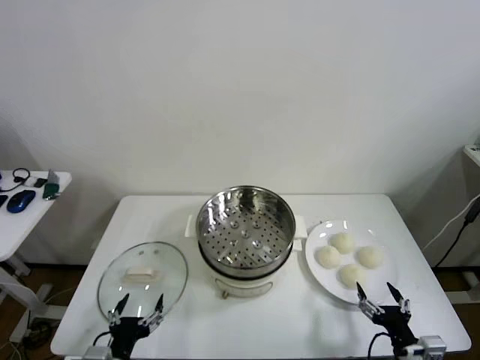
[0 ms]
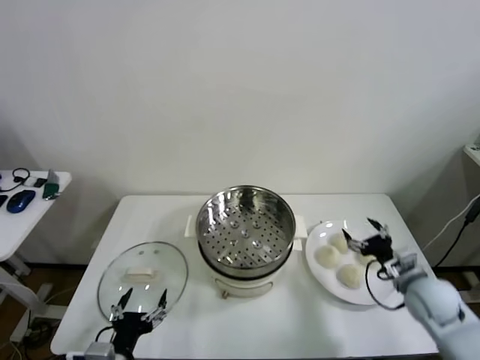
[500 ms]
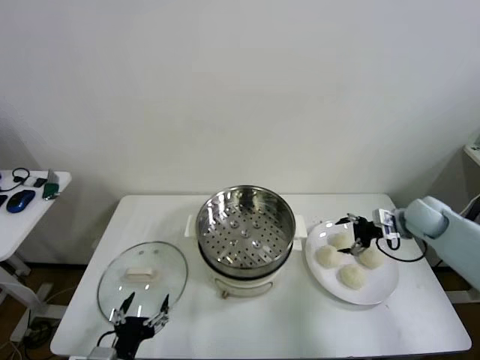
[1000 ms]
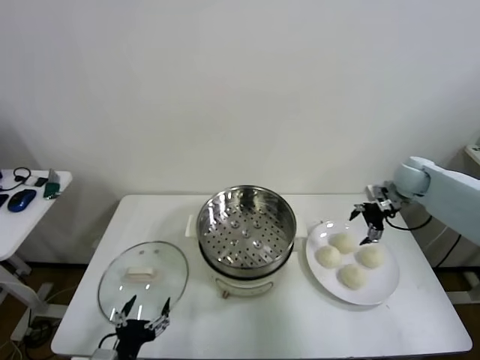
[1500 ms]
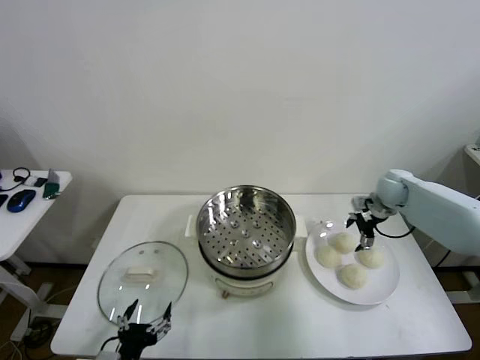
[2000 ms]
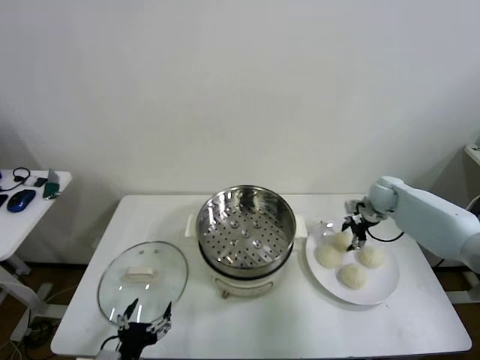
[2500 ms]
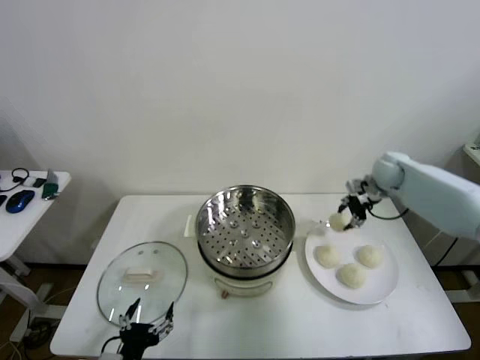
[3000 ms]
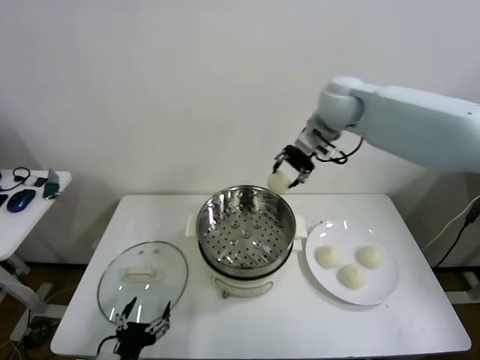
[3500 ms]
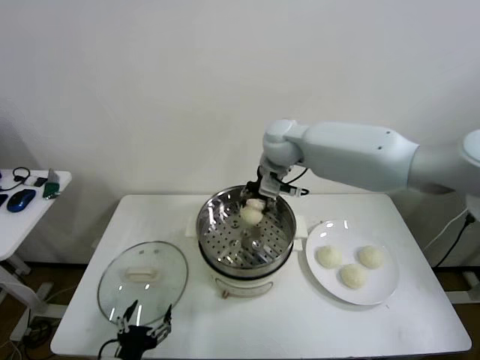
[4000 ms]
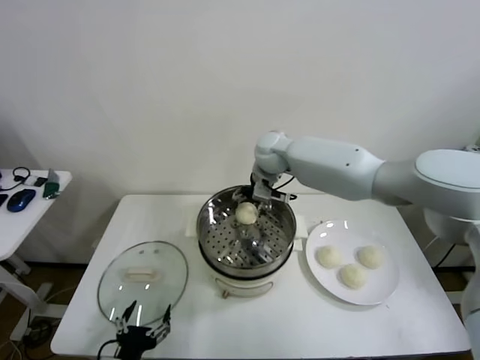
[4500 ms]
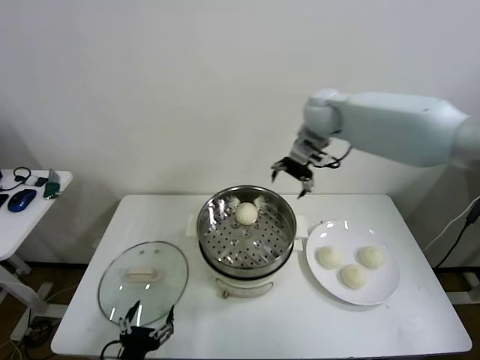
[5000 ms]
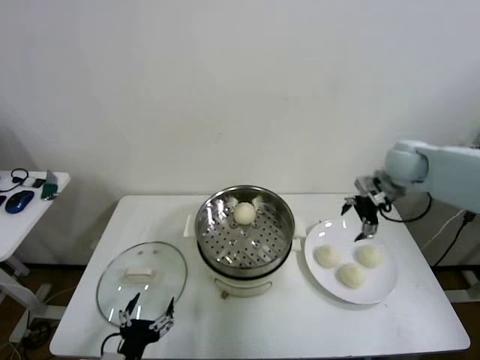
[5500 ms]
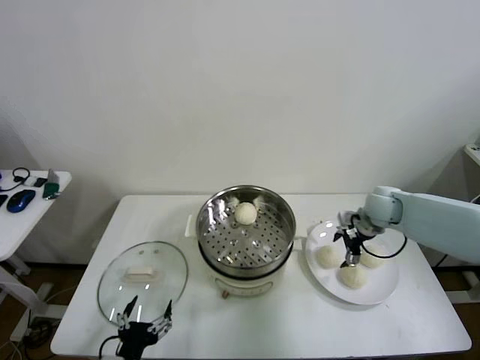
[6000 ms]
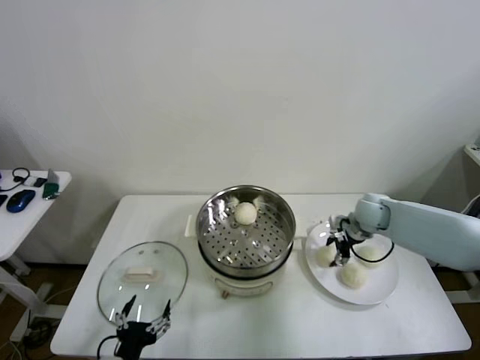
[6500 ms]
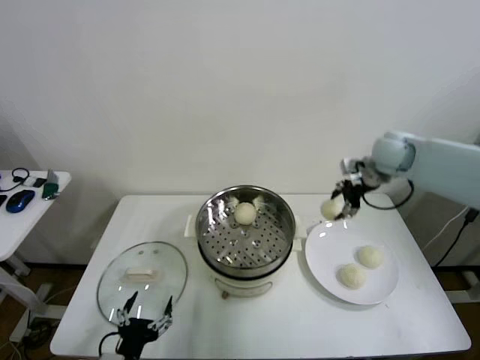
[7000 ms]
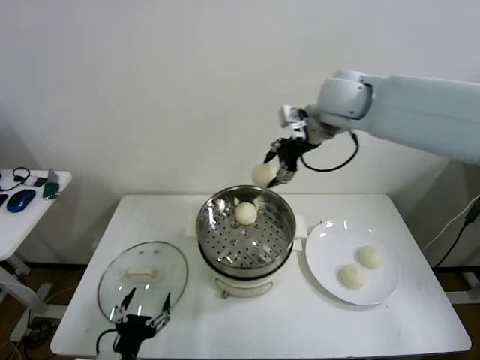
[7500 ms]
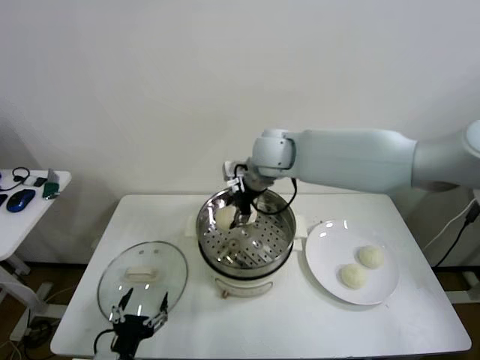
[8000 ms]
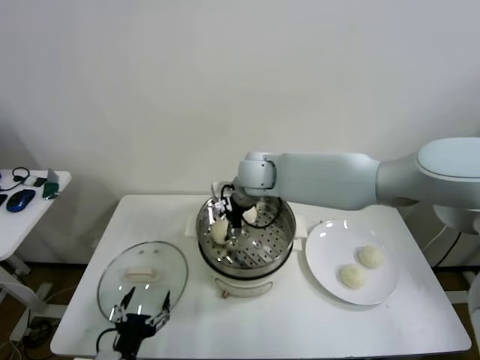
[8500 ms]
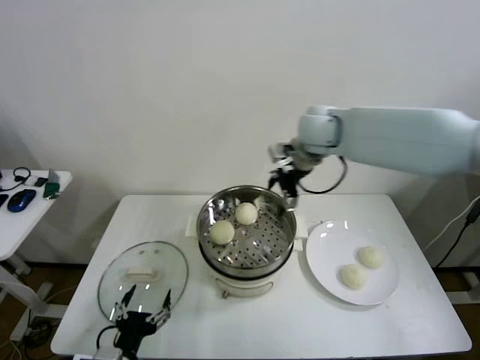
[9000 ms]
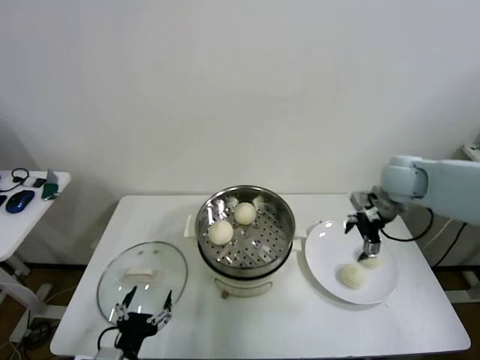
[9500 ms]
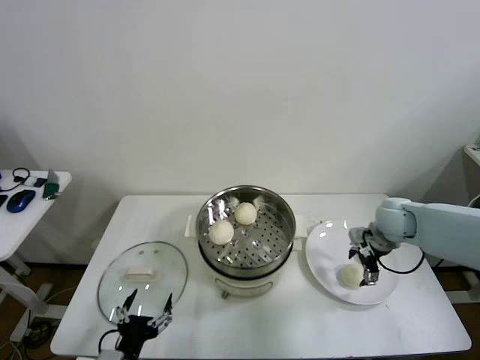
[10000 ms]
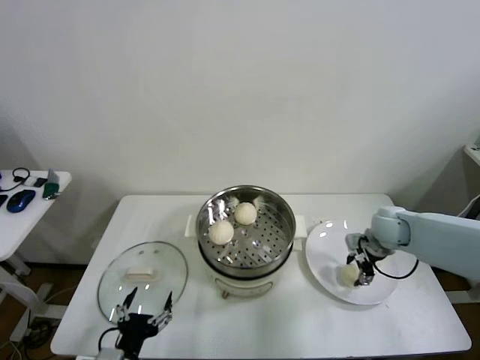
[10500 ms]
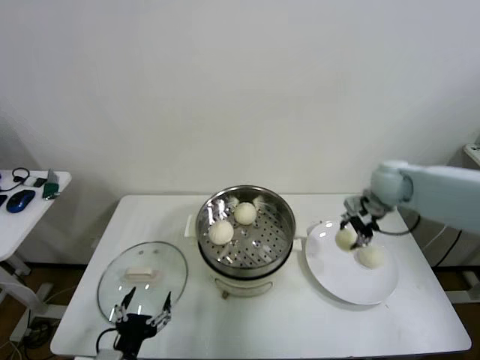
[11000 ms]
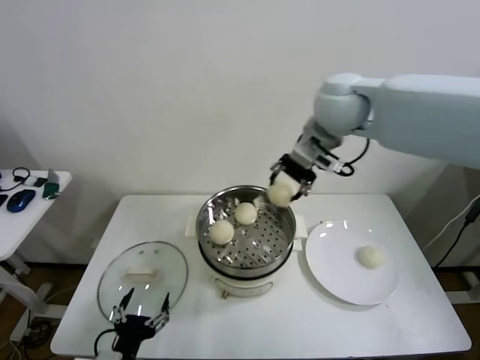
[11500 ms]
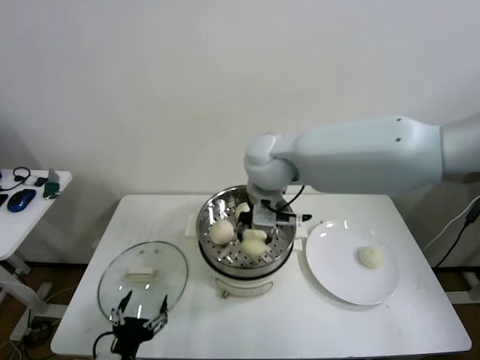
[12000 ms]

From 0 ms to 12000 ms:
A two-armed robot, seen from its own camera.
Step, from 0 ms to 2500 ms: Grasp the baozi in the plate with right gripper.
Step, from 3000 ms to 4500 ms: Place the baozi on the steamer with right gripper.
Step, from 5000 ms to 6000 ms: Grasp the baozi in the plate with right gripper.
Step, from 6500 ms to 8500 ms: Place the baozi on the steamer with right gripper.
Step, from 9000 ms to 10500 ms: Grasp the baozi in the plate with right gripper.
From 2000 ms to 4000 ms: The right gripper shifts about 35 cm to the left and upward, and closes up.
From 4000 ms to 6000 ms: The right gripper goes some 30 cm to the right and downward, and opens up.
From 6000 ms to 8000 ms: The right gripper heads to the left and upward, covering approximately 35 cm, and closes up.
From 8000 ms to 10000 ms: The right gripper moves to the right and downward, some 35 cm, and opens.
From 10000 ms to 12000 ms: The right gripper moves to the left and upward, about 35 cm, and closes up.

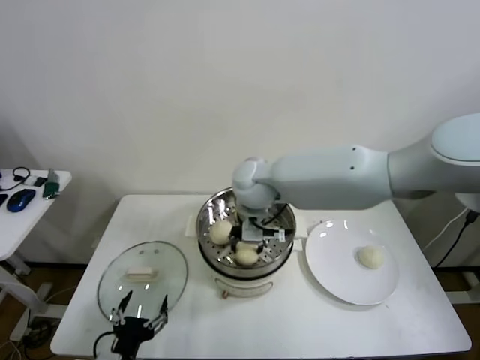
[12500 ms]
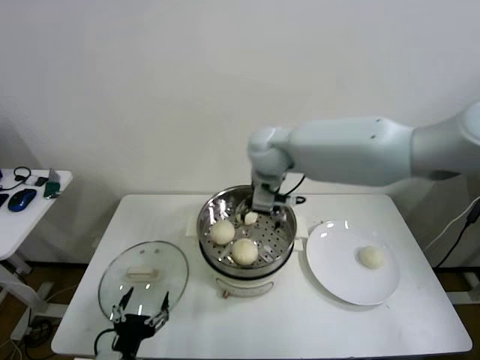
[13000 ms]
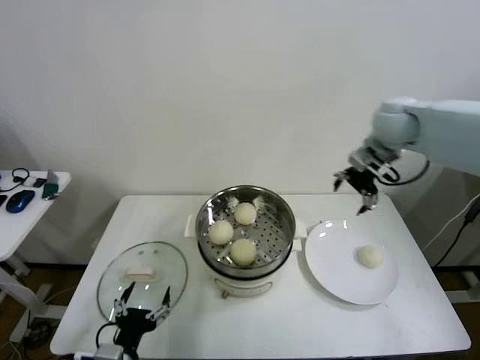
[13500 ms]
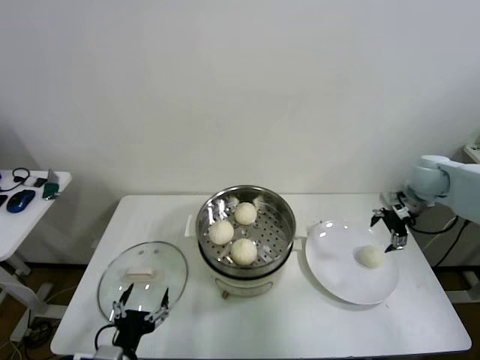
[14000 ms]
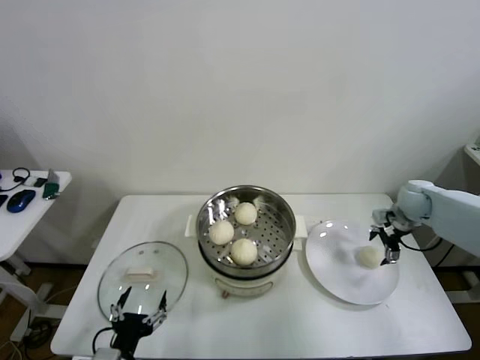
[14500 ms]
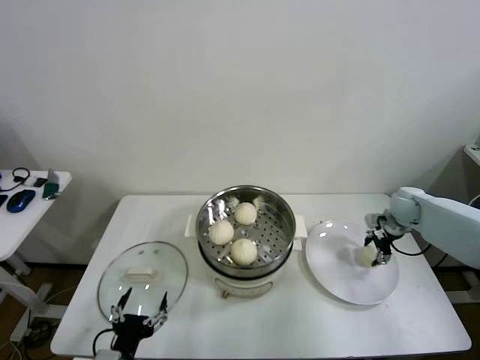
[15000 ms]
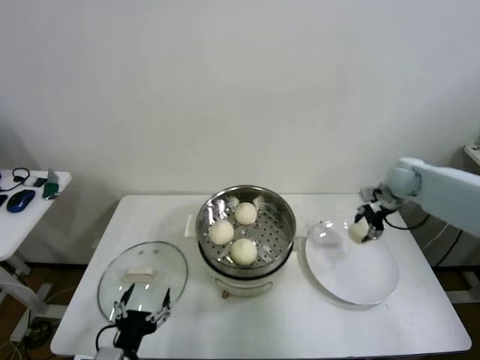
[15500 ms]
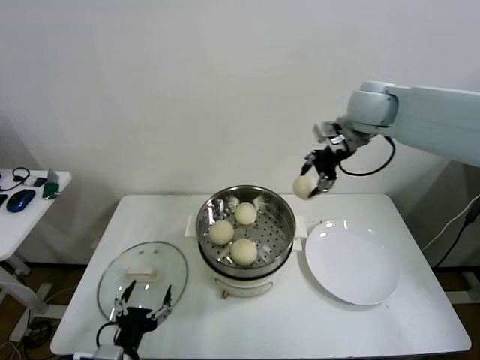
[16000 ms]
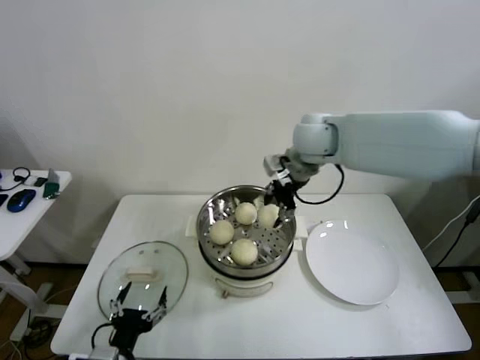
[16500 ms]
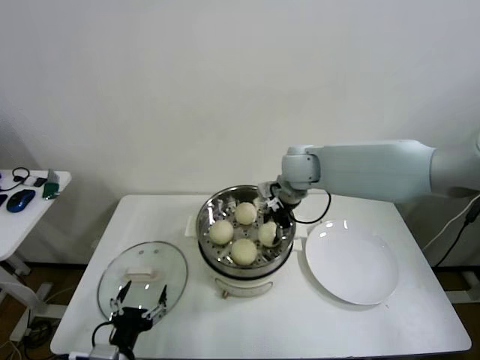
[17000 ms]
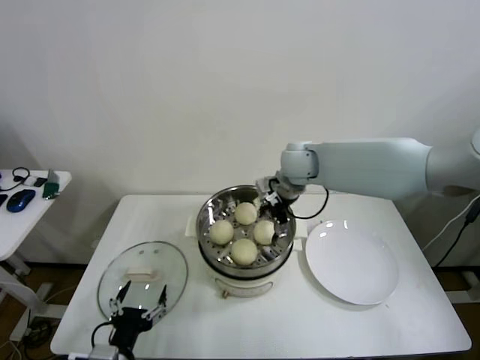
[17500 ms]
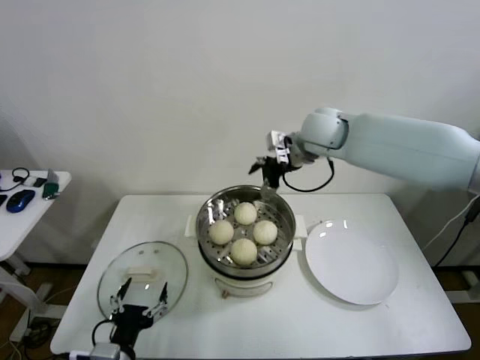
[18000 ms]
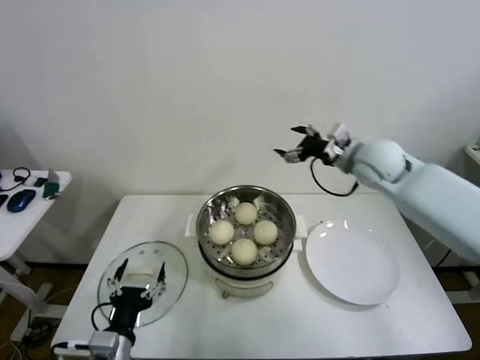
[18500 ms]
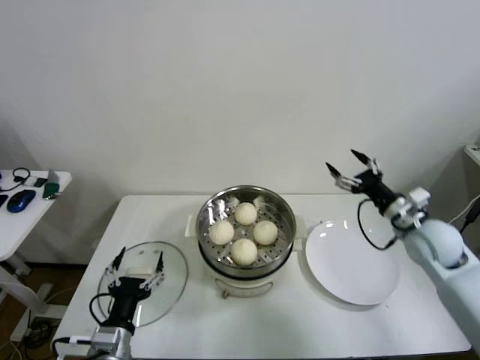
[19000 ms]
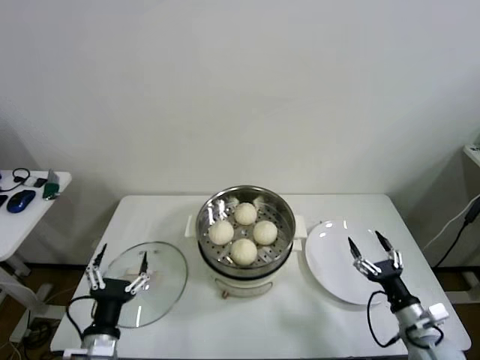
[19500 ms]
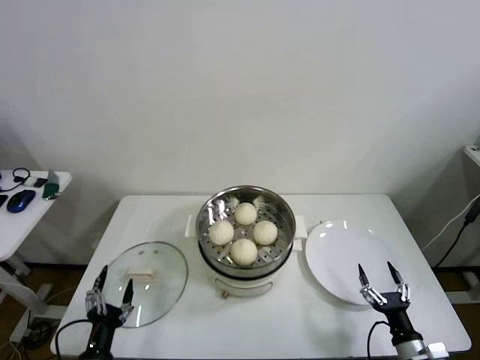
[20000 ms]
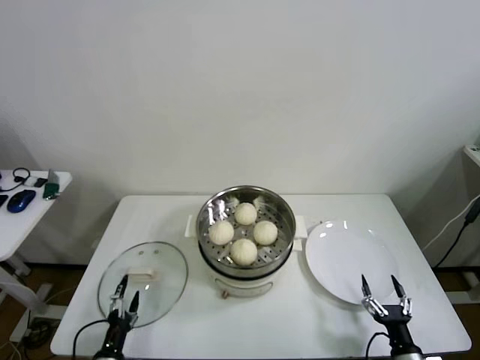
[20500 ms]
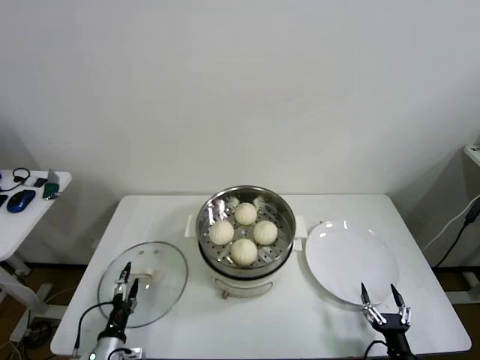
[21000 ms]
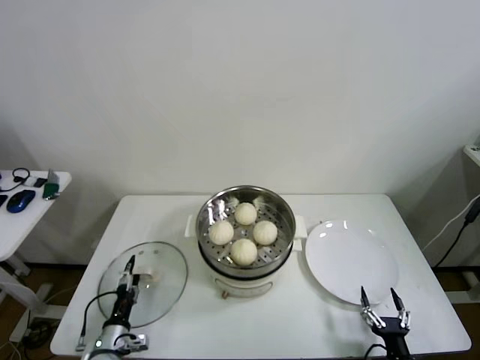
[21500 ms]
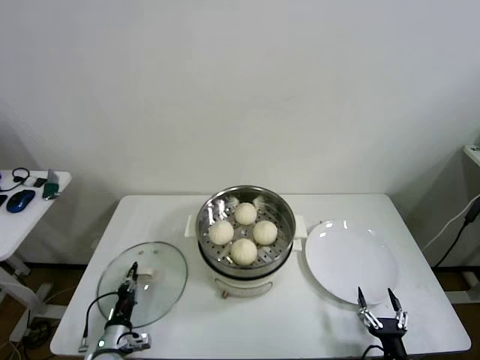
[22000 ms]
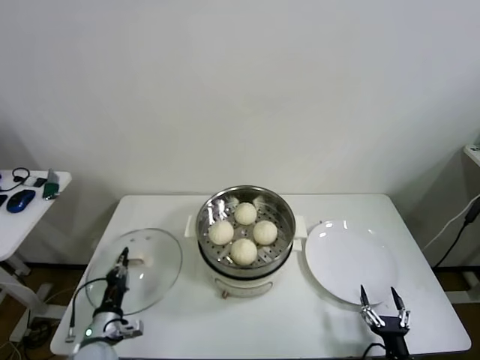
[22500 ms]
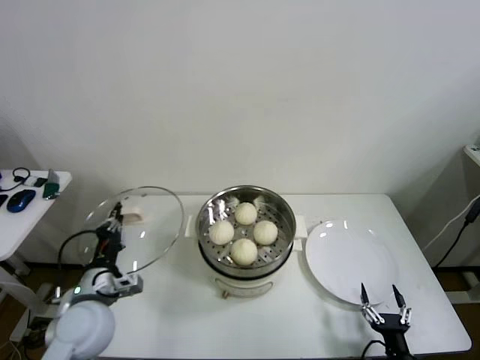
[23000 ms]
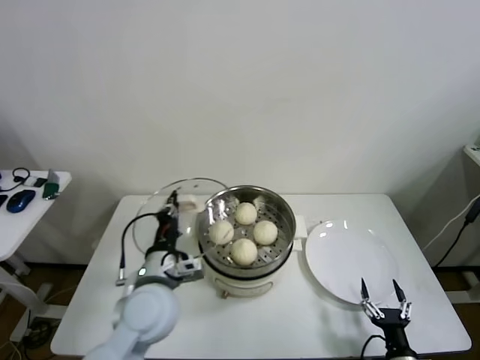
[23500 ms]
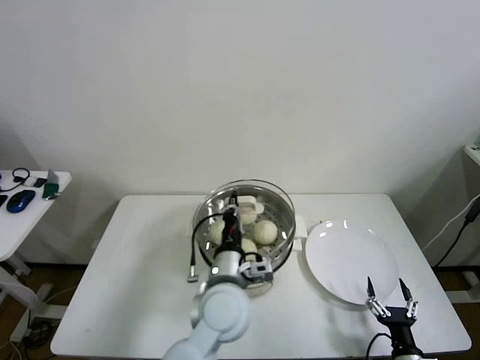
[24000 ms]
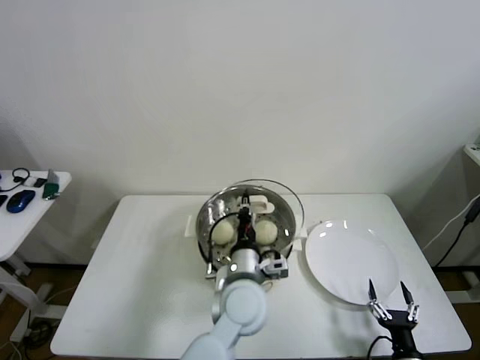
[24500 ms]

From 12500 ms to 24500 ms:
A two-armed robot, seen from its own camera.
Step, from 13000 ms to 15000 ms: Grasp the baozi in the plate with right gripper.
Step, from 15500 ms to 17000 ms: Place the baozi on the steamer with right gripper.
Step, from 17500 ms to 22000 ms: Grasp the pot lid with left gripper.
From 12500 ms to 14500 ms: The right gripper travels to the right by some 40 cm, and opens its fingers.
From 14500 ms to 16500 ms: The right gripper heads to the left and upward, covering approximately 35 cm, and closes.
From 16500 ms to 18500 ms: The right gripper is displaced to the right by approximately 15 cm, and opens its fingers.
From 18500 ms to 20500 ms: The left gripper shifts about 15 cm downward and to the left; the right gripper moves downward and backward, roughly 50 cm.
From 20500 ms to 22500 ms: The left gripper heads forward, covering some 10 cm, and closes its fingers.
From 22500 ms to 24500 ms: The left gripper goes about 35 cm to the right and upward.

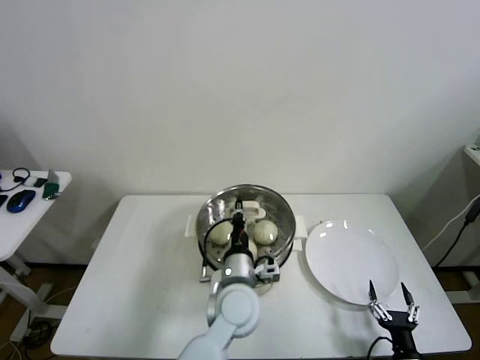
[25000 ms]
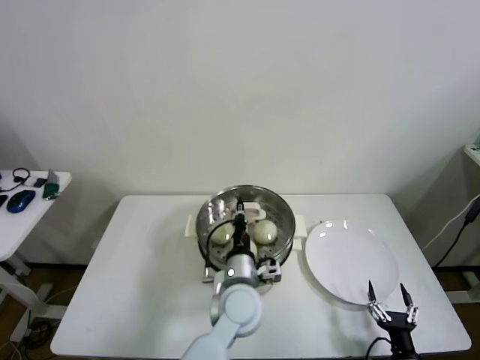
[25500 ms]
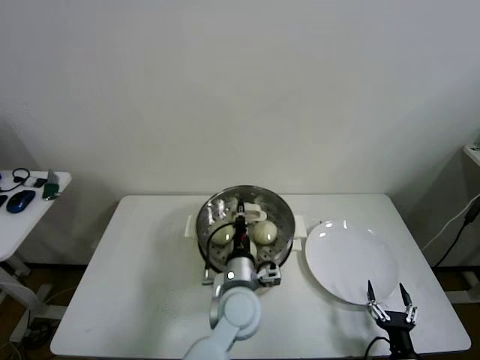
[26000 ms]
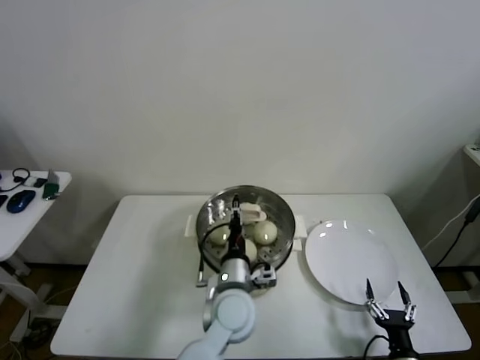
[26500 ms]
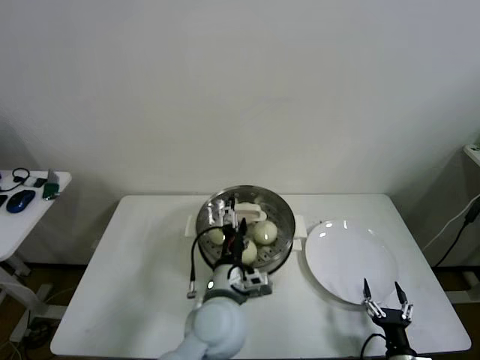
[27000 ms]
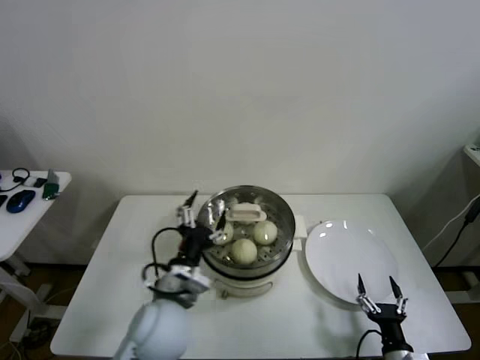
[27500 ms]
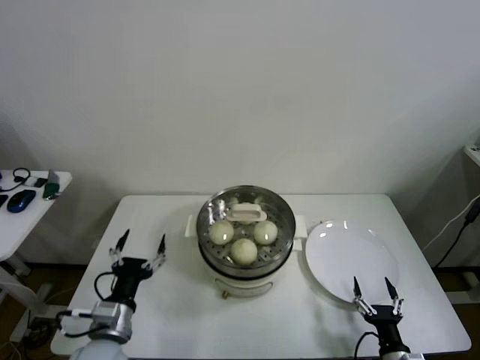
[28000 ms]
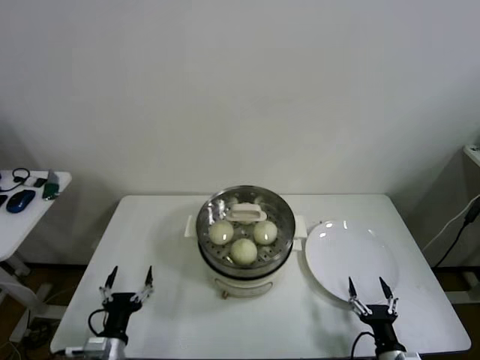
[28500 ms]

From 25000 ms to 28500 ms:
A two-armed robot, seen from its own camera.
From 25000 ms to 27000 ms: The left gripper opens up.
From 27000 ms to 28500 ms: The left gripper is displaced to the left and downward by approximately 30 cm.
